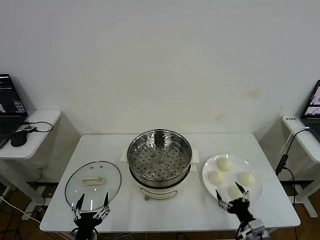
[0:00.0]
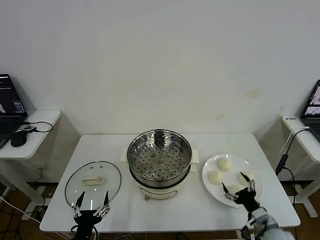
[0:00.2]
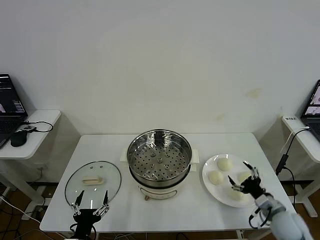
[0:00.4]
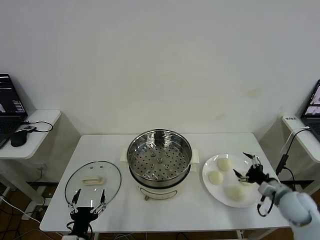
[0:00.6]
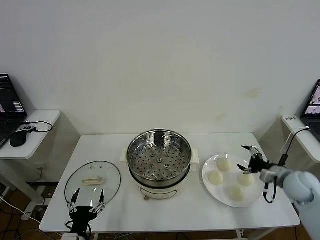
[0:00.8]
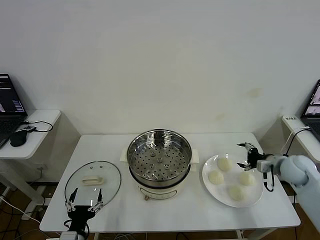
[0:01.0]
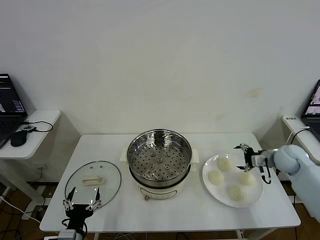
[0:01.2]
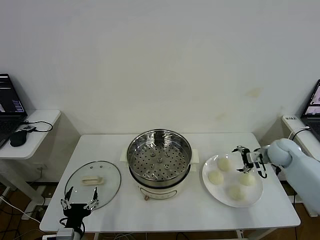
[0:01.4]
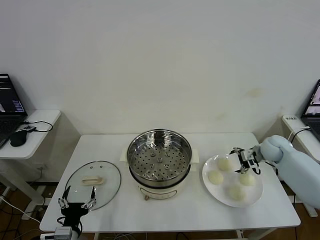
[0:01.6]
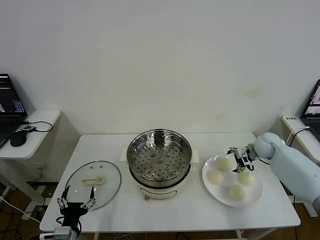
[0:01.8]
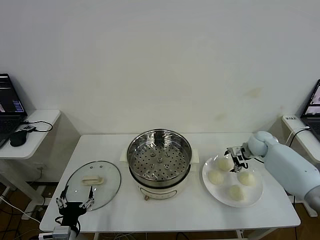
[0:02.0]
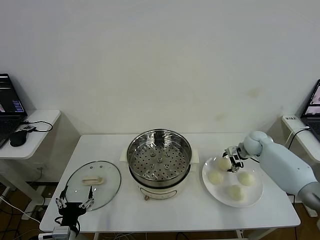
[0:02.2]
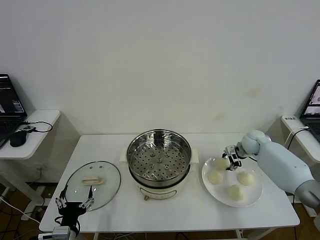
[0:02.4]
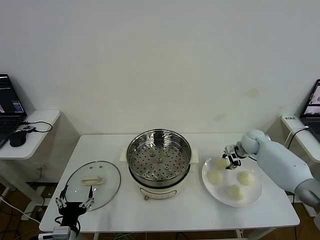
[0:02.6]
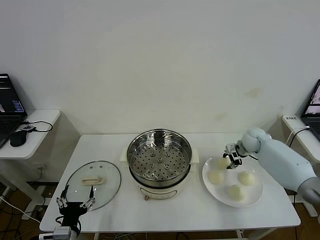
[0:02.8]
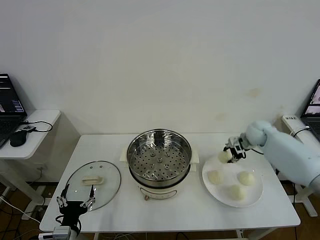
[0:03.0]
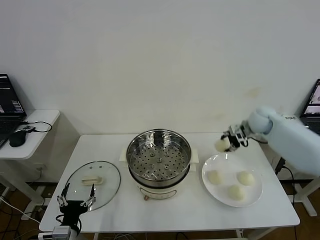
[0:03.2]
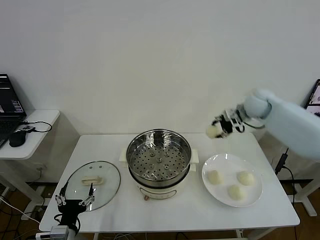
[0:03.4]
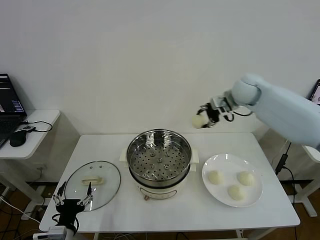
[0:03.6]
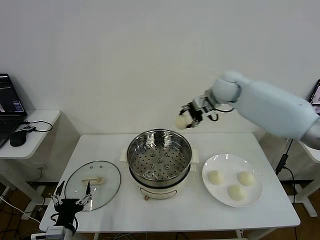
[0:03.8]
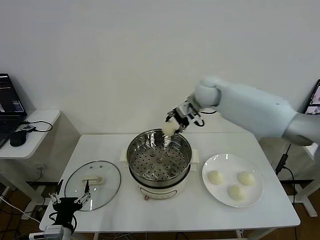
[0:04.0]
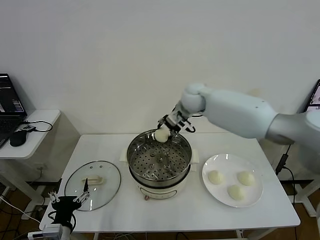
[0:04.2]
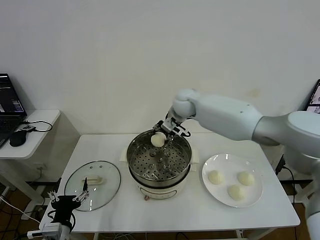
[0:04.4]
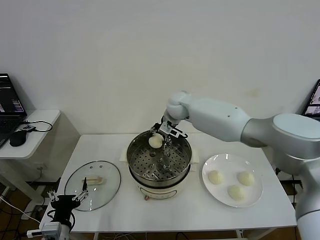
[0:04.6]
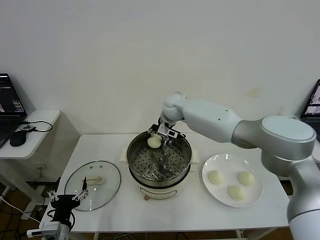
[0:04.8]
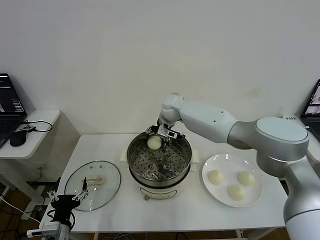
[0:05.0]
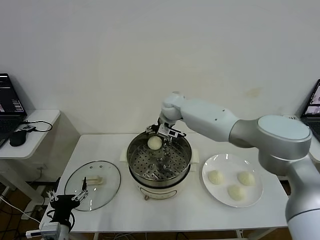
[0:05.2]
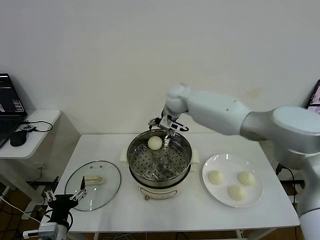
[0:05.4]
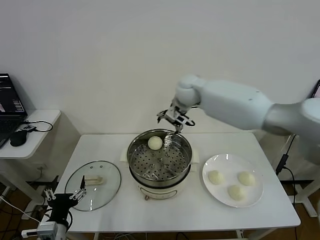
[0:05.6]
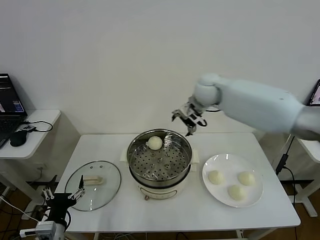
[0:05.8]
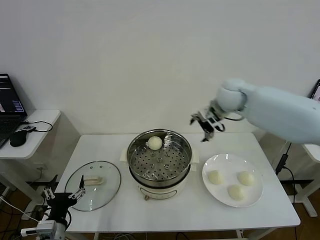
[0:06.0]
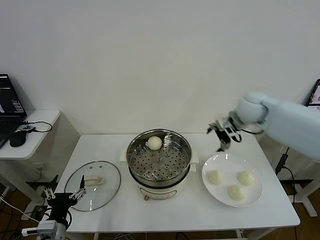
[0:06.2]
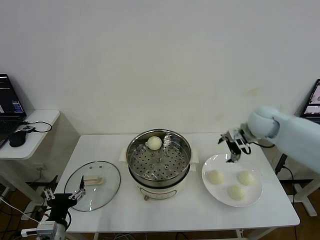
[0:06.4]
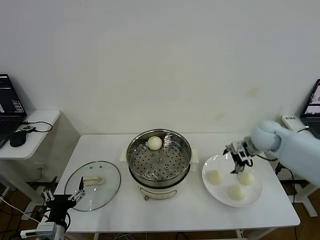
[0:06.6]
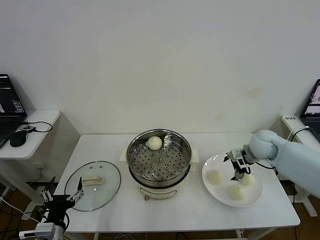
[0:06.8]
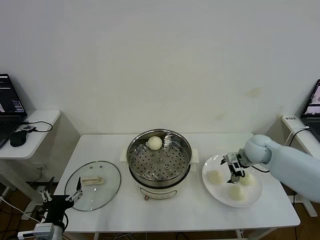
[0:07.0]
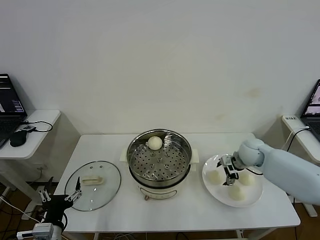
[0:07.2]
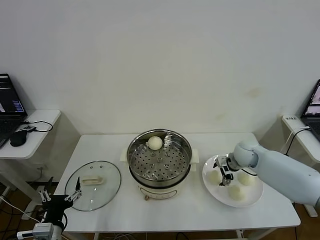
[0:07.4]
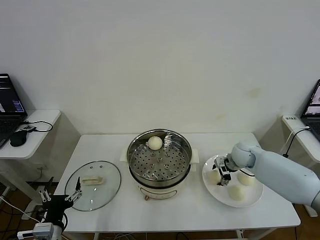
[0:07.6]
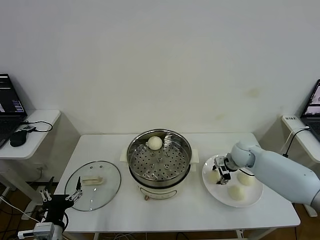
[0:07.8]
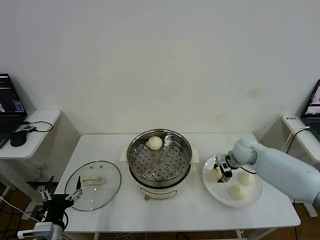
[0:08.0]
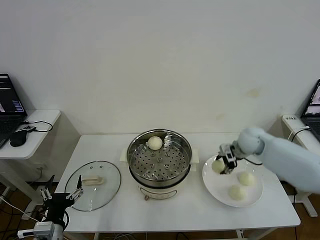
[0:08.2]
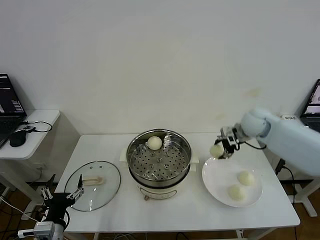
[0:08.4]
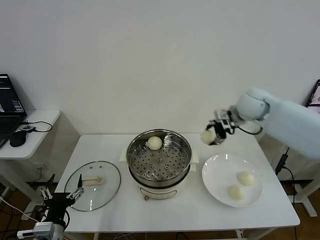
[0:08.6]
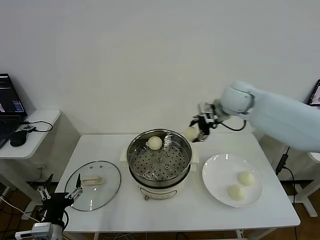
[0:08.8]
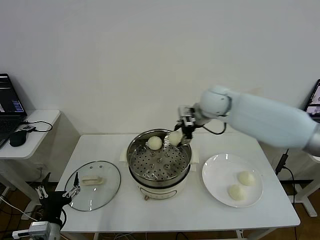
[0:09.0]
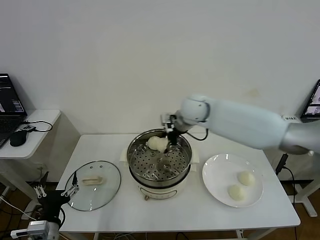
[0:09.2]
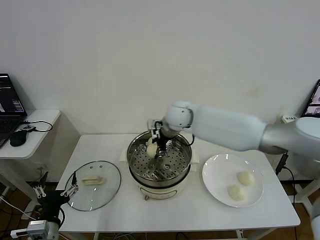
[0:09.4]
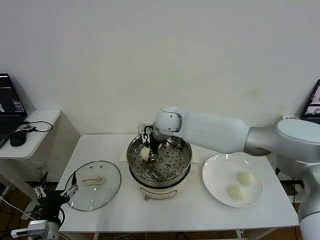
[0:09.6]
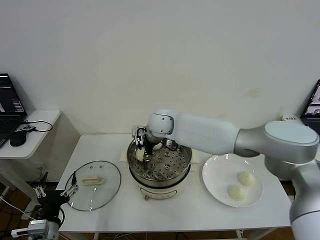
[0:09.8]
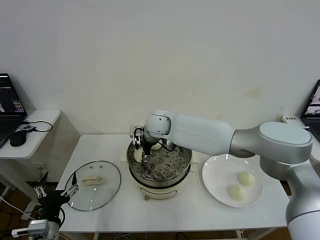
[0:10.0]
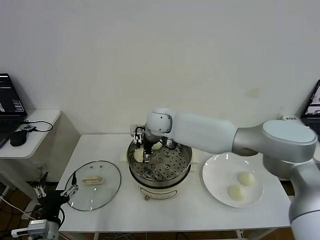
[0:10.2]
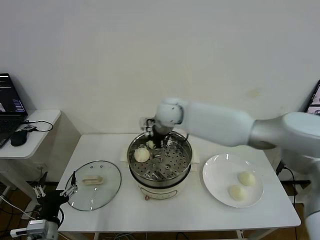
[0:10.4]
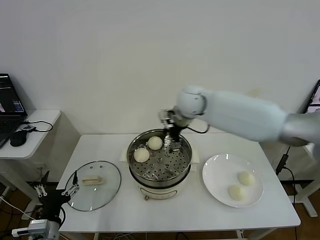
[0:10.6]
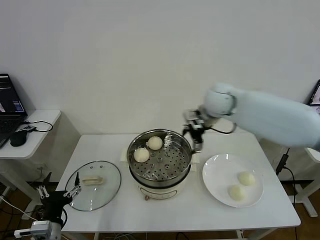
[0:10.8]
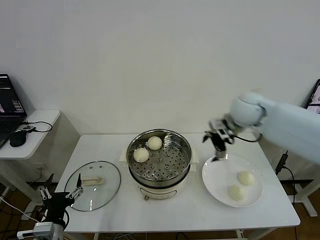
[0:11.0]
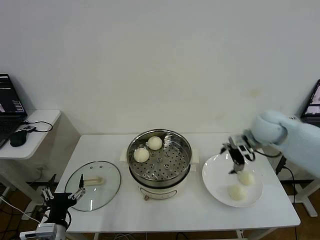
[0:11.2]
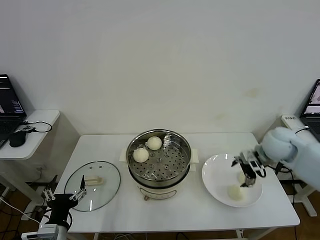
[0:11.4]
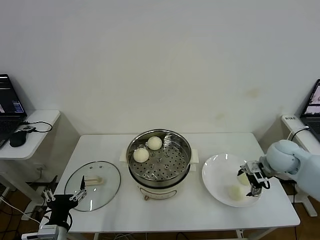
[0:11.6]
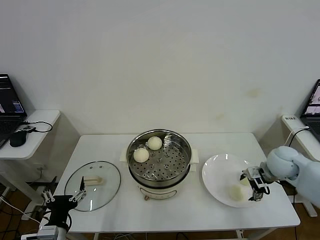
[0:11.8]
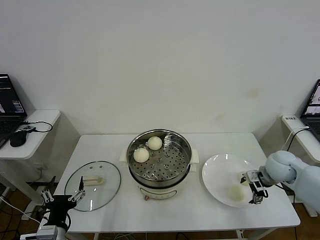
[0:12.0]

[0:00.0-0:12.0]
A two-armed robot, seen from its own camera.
Step, 0:00.0 to 0:02.4: Grasp the baozi in the plate with right gripper.
Step, 0:02.8 to 0:05.0: Place the baozi on the steamer with right gripper.
Step, 0:05.2 to 0:07.8: Grasp the baozi in the plate with right gripper.
Step, 0:08.0 to 0:10.0: Place the baozi on the steamer with right gripper.
0:01.6 to 0:03.0: The right gripper is displaced upward by some 10 cm, and closes.
0:03.0 to 0:04.4: The right gripper heads to the left, covering approximately 30 cm.
0:04.4 to 0:06.0: The right gripper heads to the right, covering about 20 cm, and opens its fingers.
0:06.0 to 0:07.6: The right gripper heads downward, covering some 20 cm, and closes its fingers.
0:07.6 to 0:09.0: The right gripper travels upward and to the left by roughly 25 cm.
0:09.0 to 0:10.4: The right gripper shifts some 10 cm to the left, and opens.
0:10.4 to 0:12.0: The right gripper travels to the right and downward by about 40 cm.

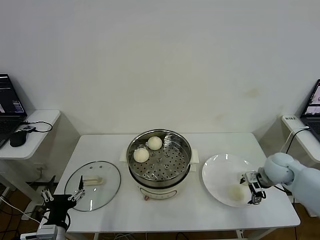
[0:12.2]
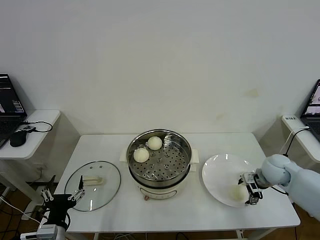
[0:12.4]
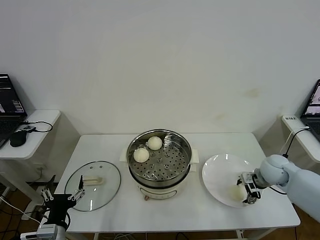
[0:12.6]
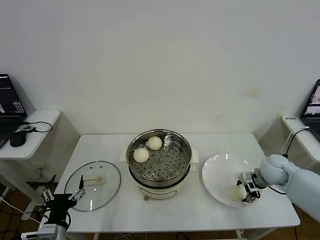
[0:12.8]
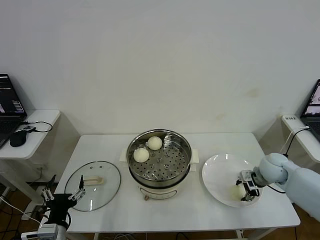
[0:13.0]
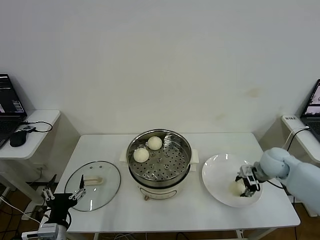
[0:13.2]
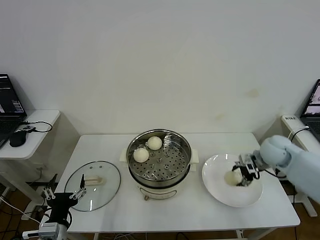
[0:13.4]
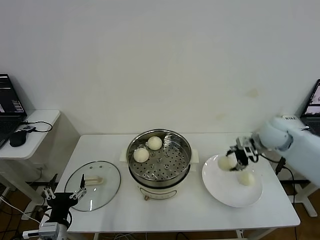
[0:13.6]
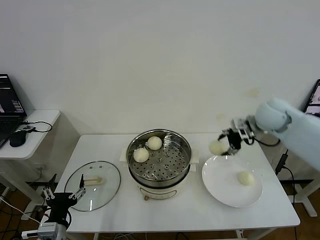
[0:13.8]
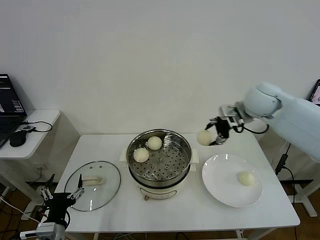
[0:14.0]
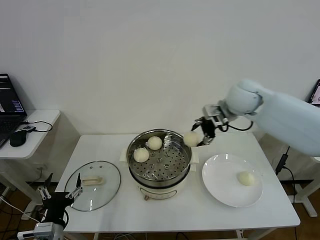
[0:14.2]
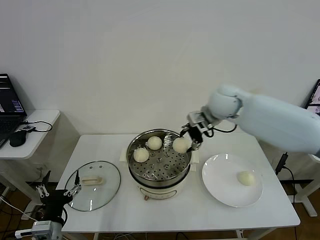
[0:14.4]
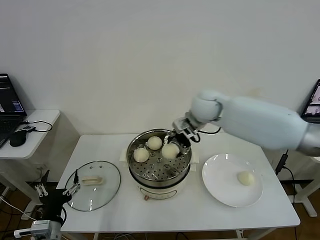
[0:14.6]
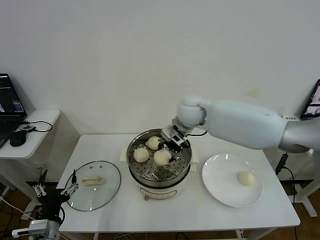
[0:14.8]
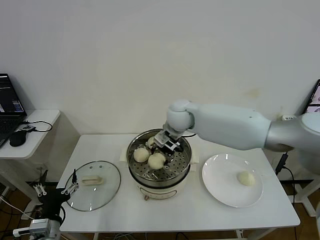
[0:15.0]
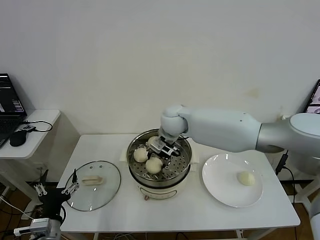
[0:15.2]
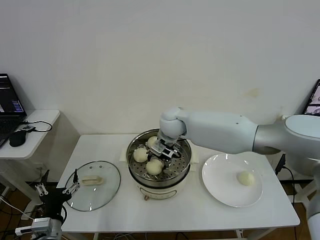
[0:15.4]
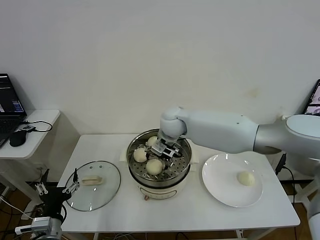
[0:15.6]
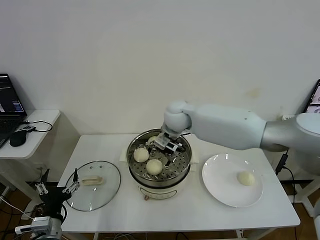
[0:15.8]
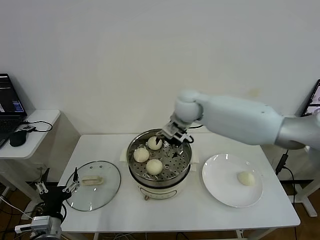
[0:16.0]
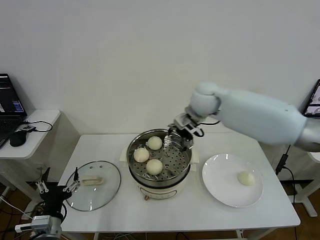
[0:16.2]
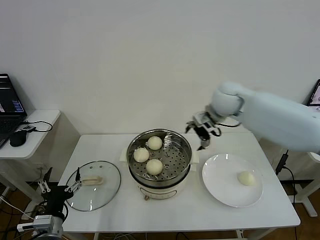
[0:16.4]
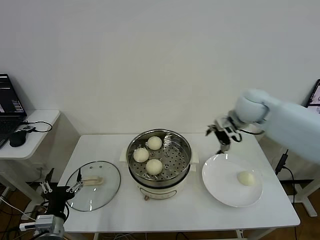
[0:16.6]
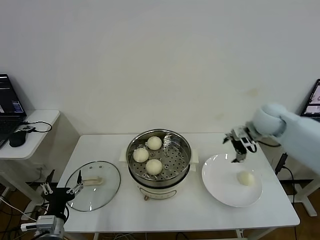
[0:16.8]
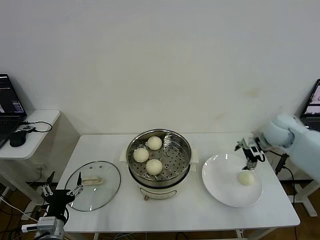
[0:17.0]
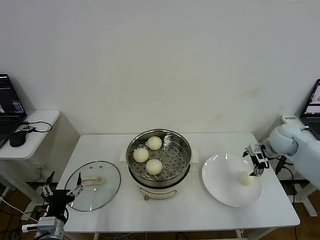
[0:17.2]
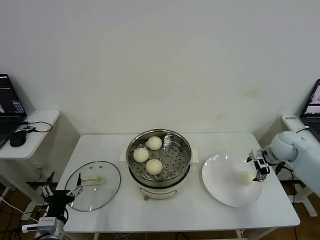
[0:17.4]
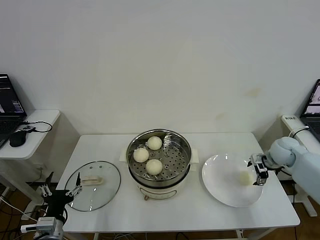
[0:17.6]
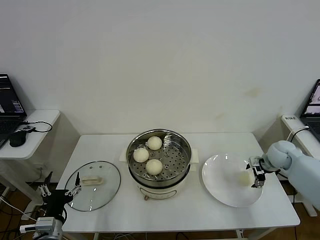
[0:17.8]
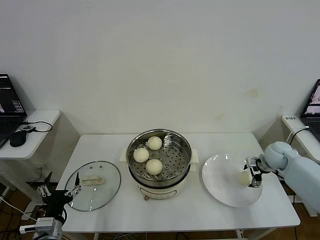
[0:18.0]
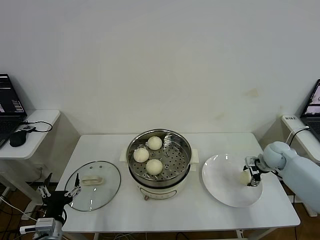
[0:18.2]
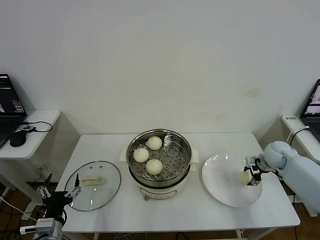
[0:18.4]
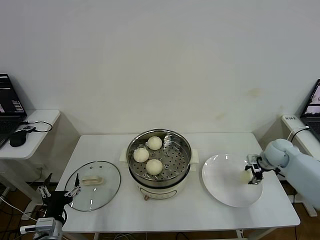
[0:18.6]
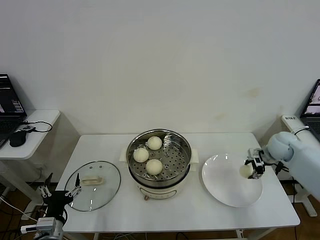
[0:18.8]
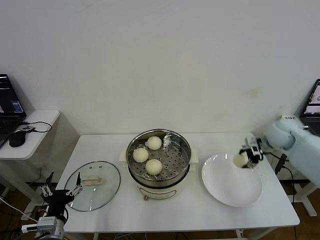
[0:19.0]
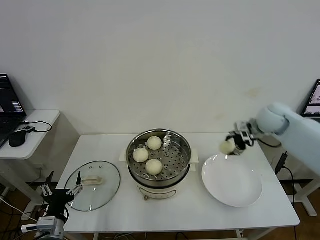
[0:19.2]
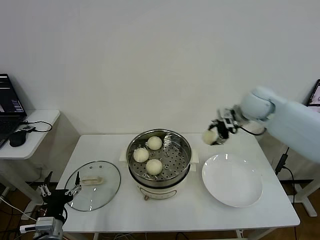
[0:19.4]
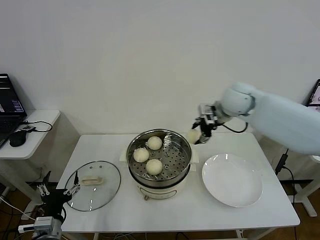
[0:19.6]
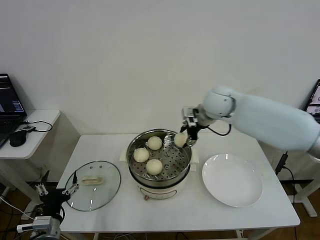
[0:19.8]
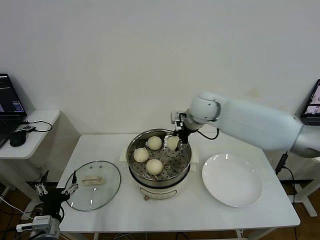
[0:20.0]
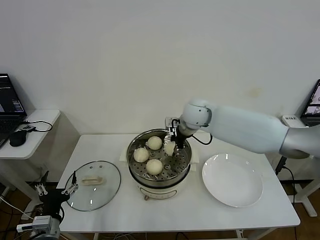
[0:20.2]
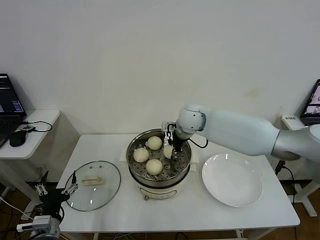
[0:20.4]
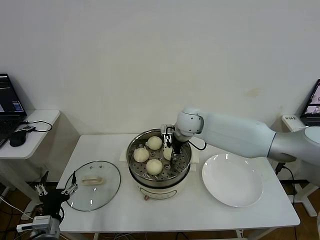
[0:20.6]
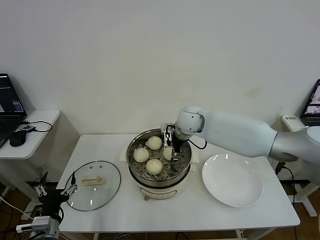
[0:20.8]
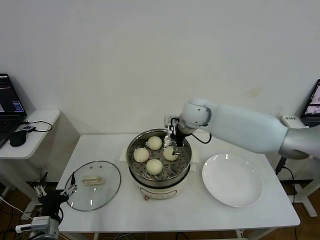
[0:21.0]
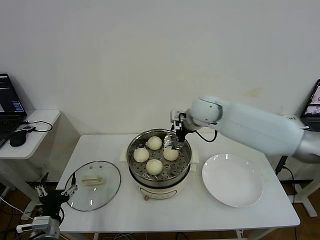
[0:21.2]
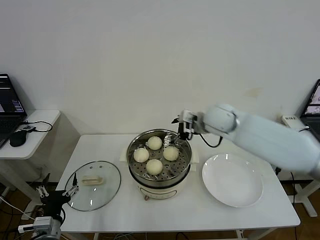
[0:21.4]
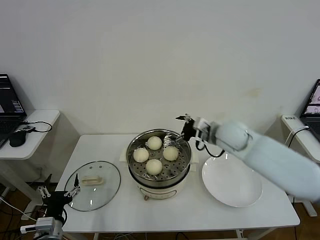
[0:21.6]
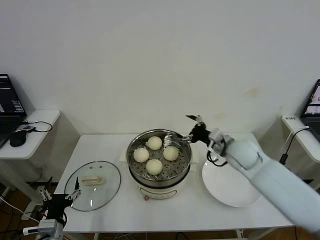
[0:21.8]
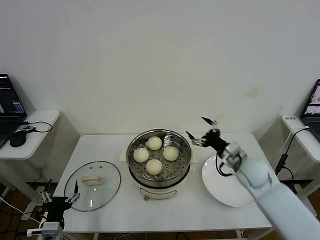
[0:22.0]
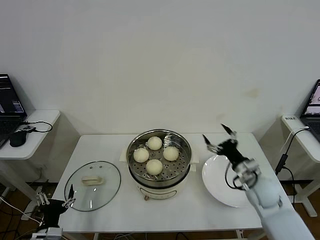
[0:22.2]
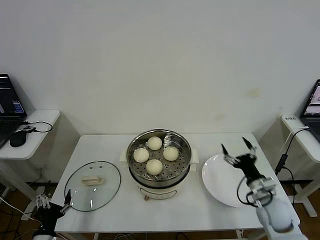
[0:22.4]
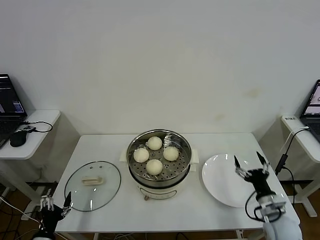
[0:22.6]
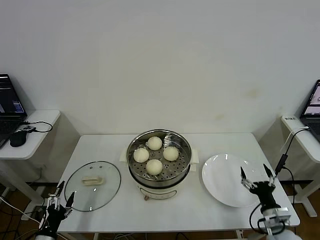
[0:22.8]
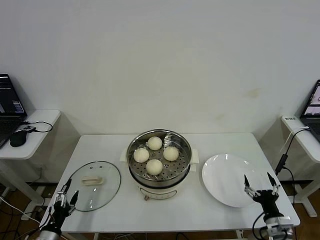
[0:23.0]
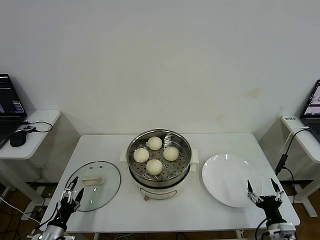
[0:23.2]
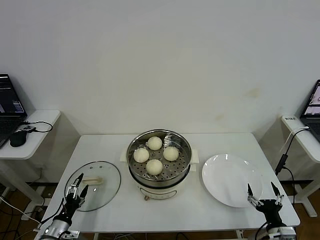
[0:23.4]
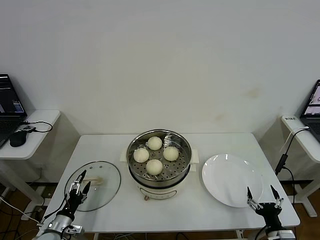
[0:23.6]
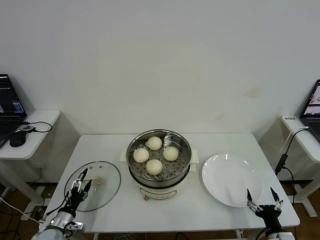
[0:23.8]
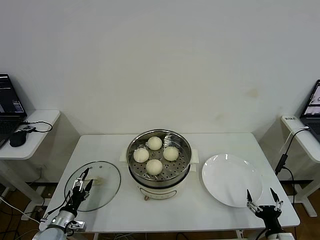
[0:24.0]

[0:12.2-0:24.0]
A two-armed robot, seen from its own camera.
Step, 0:13.2 to 0:15.6: Place the baozi on the steamer with right gripper.
Step, 0:15.8 to 0:18.4: Grasp the baozi in the plate with right gripper.
Step, 0:18.6 to 0:20.8: Place the baozi on the steamer with right gripper.
0:12.2 to 0:13.6: The right gripper shifts roughly 15 cm upward and forward, and closes.
0:13.6 to 0:15.2: The right gripper heads to the left, covering approximately 30 cm.
0:15.2 to 0:16.6: The right gripper shifts roughly 25 cm to the right, and opens up.
0:16.6 to 0:18.2: The right gripper moves downward and to the right, some 25 cm, and closes its fingers.
0:18.2 to 0:19.6: The right gripper goes roughly 30 cm upward and to the left.
0:19.6 to 0:21.0: The right gripper moves to the left and downward, some 10 cm, and opens up.
0:21.0 to 0:22.6: The right gripper shifts roughly 50 cm backward, to the right and downward. The left gripper is displaced downward and to the left by about 10 cm.
0:22.6 to 0:24.0: The left gripper shifts approximately 10 cm forward and downward. Meanwhile the right gripper shifts some 10 cm backward and downward.
